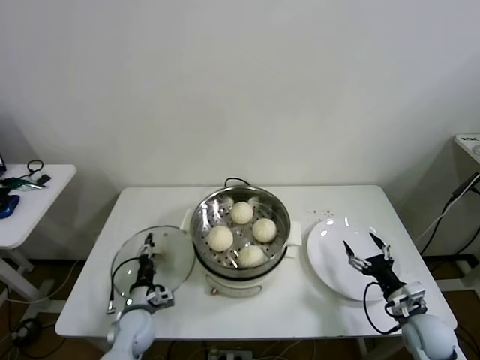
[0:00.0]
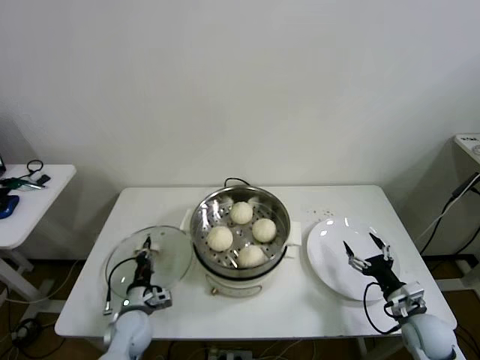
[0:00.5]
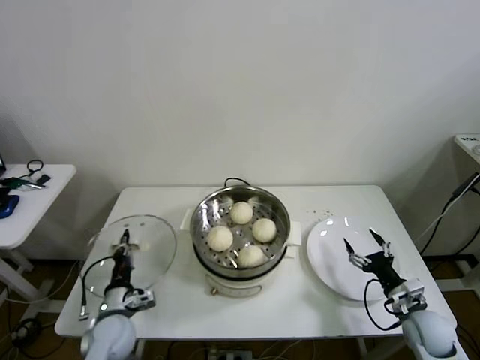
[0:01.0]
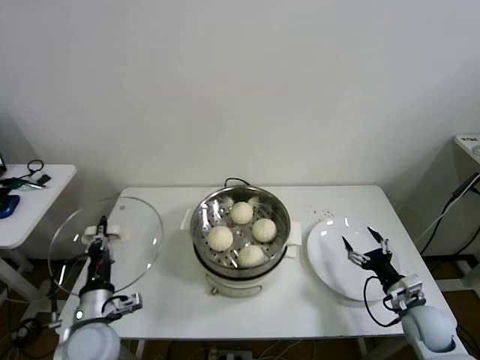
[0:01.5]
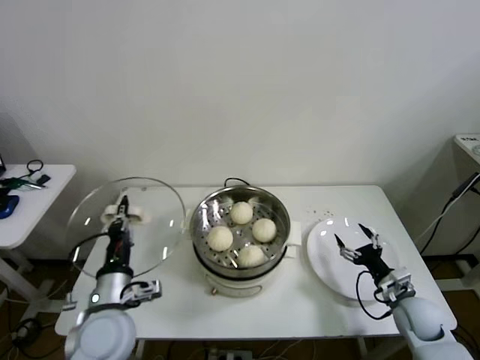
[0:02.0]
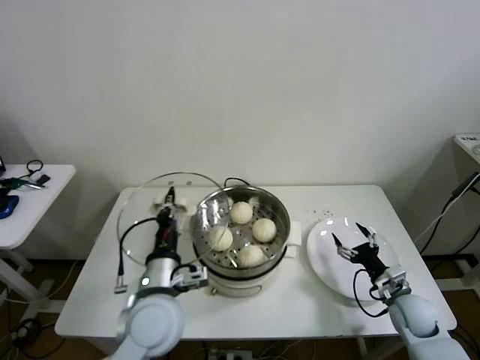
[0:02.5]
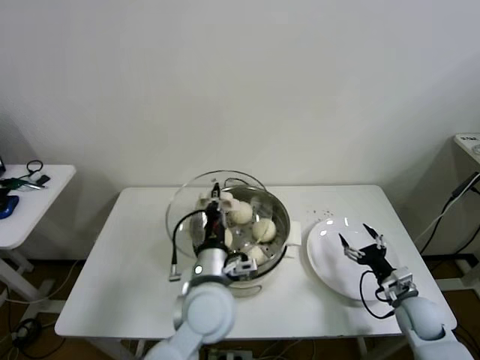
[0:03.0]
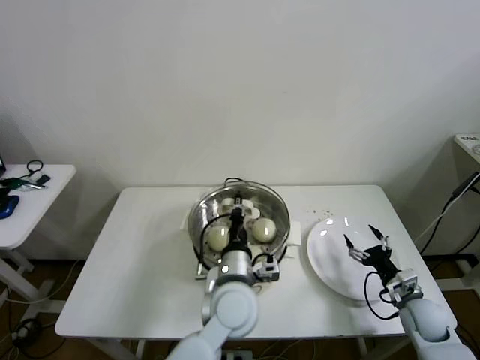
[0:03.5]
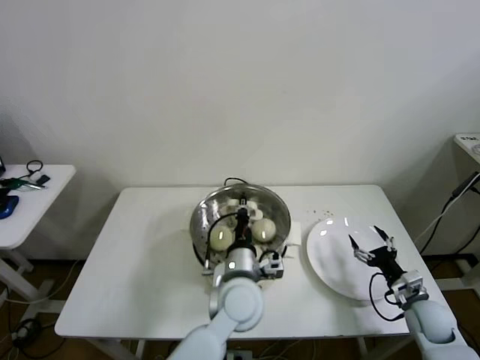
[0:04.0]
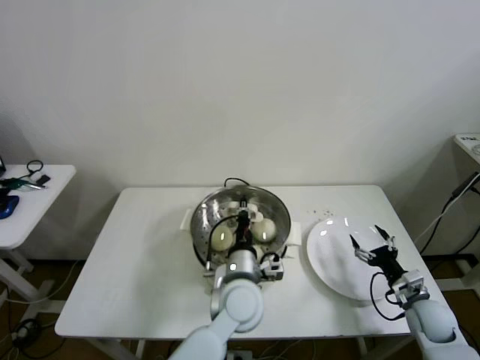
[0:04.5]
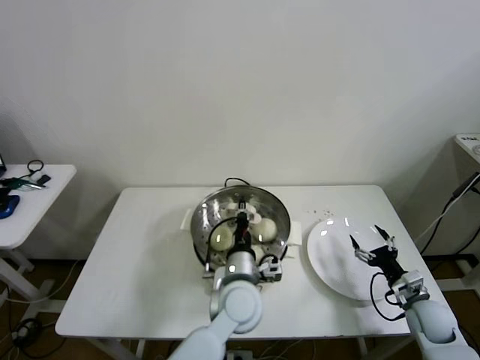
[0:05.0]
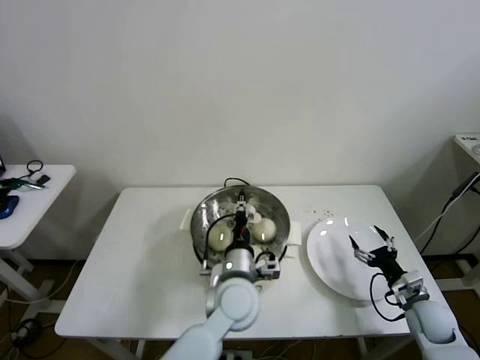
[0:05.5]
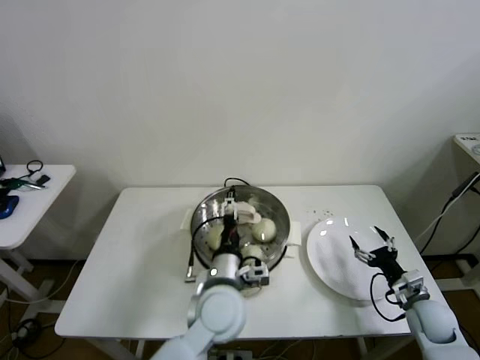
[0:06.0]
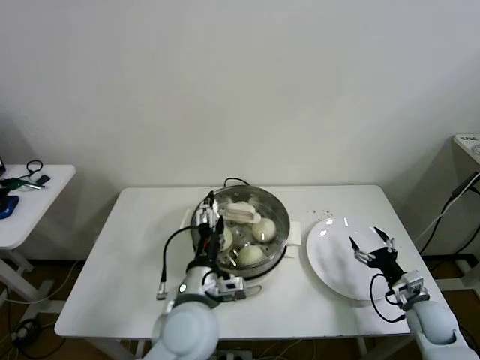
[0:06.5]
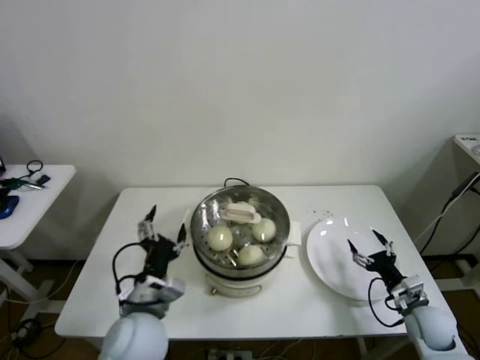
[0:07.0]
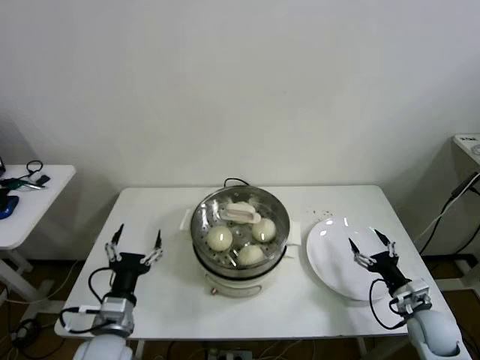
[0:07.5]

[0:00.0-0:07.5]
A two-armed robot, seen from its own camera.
Step, 0:00.5 to 0:05.0: Place the pot lid on the steamer with left gripper.
0:00.0 to 0:02.0: The left gripper shifts some 20 cm upward, and closes.
0:02.0 to 0:04.0: The left gripper moves to the right, roughly 25 cm.
0:04.0 to 0:05.5: The grippers make only small movements.
0:05.5 to 0:07.5: The left gripper shifts approximately 25 cm to the left, and opens up.
